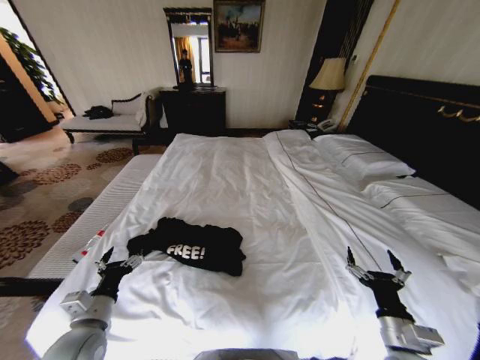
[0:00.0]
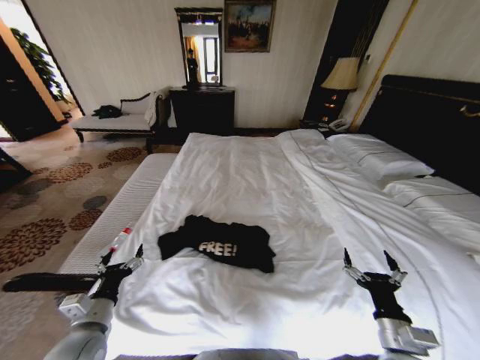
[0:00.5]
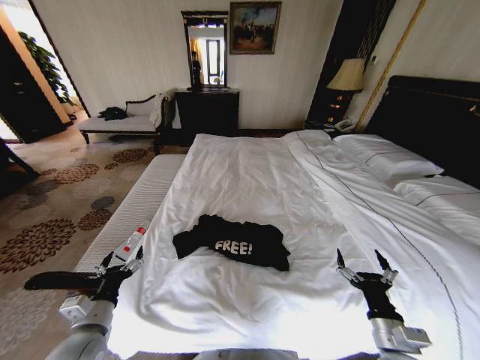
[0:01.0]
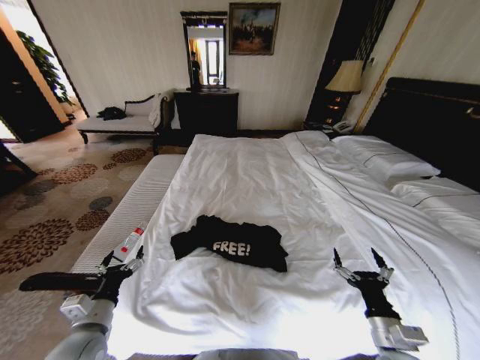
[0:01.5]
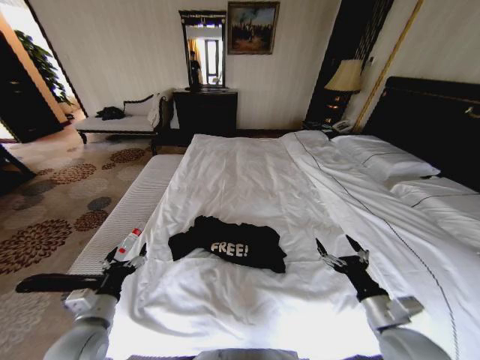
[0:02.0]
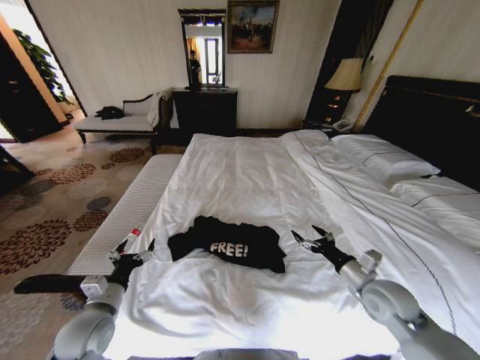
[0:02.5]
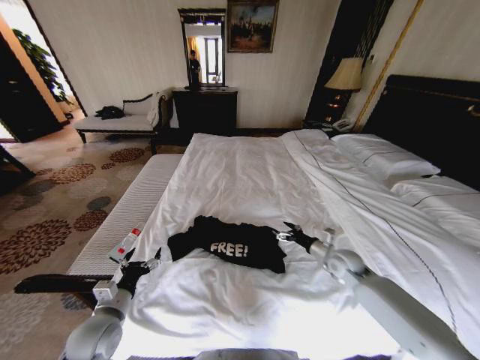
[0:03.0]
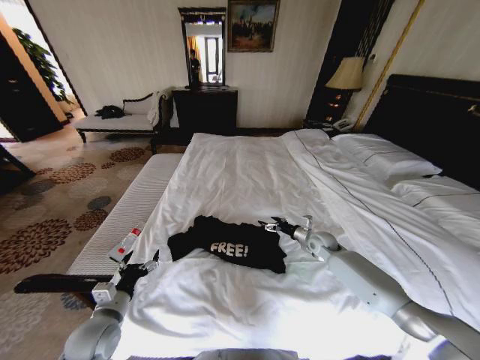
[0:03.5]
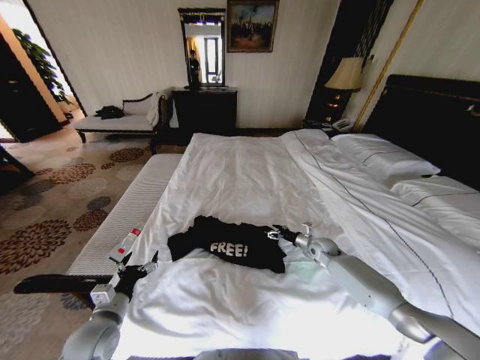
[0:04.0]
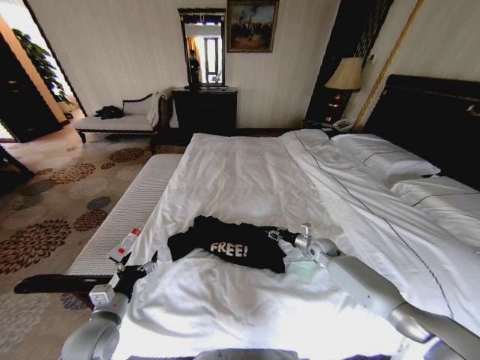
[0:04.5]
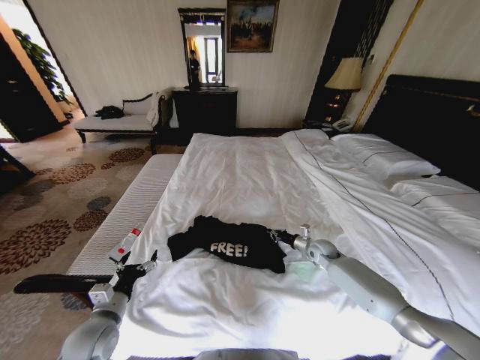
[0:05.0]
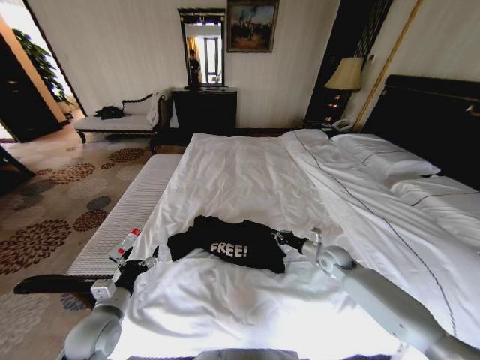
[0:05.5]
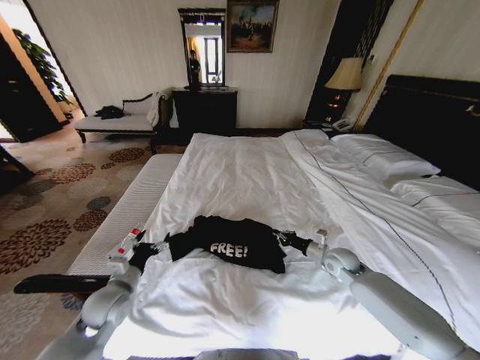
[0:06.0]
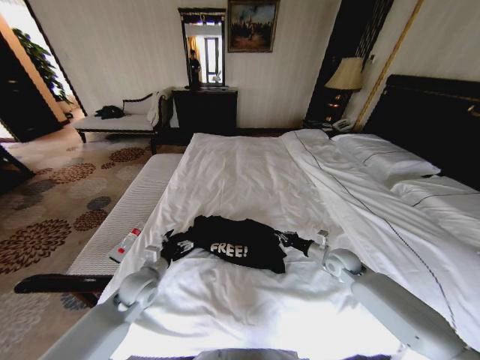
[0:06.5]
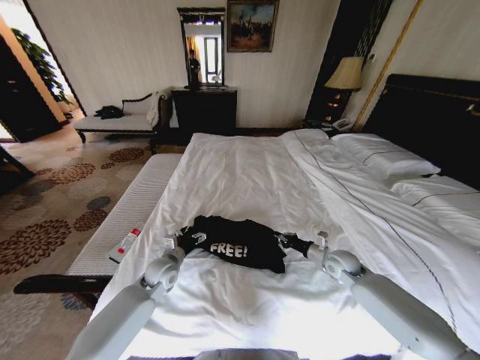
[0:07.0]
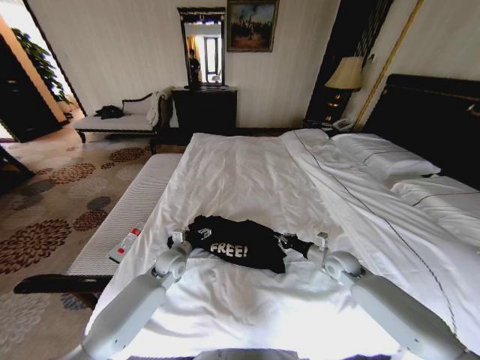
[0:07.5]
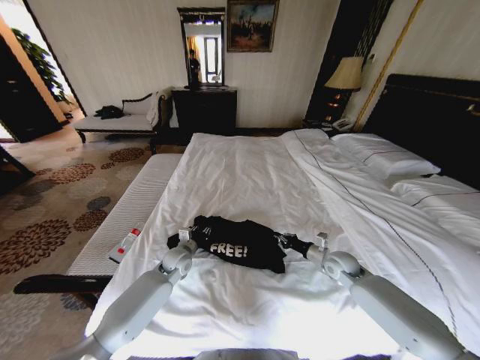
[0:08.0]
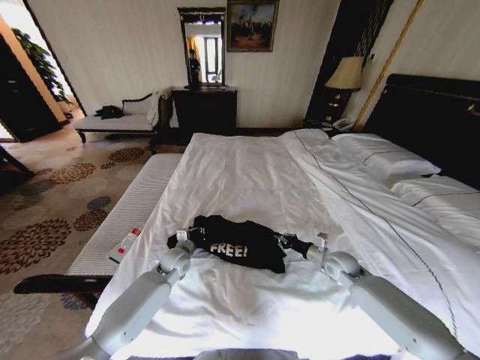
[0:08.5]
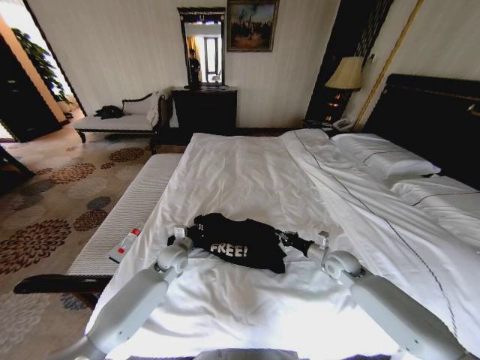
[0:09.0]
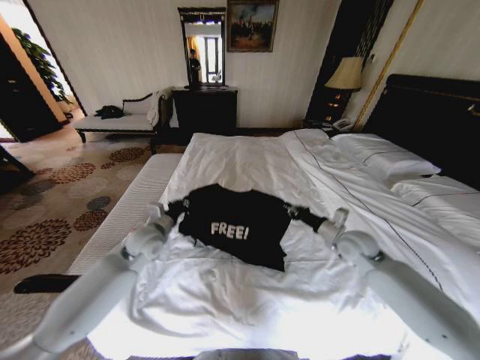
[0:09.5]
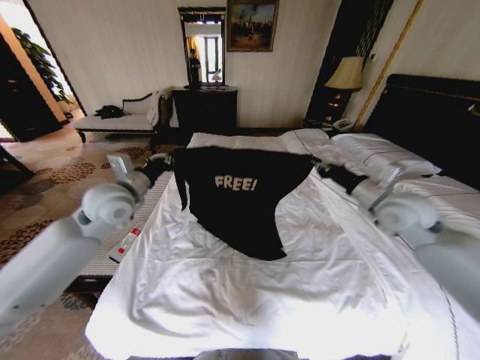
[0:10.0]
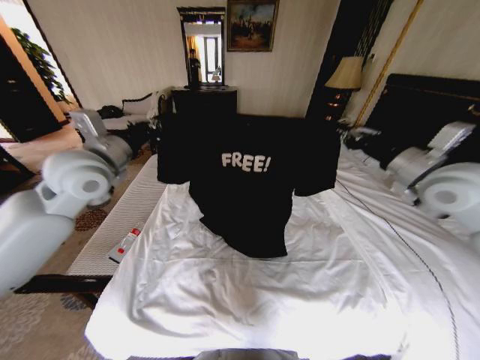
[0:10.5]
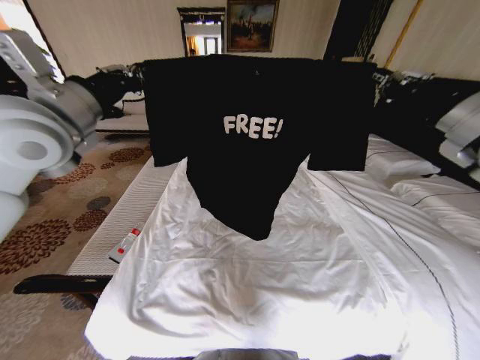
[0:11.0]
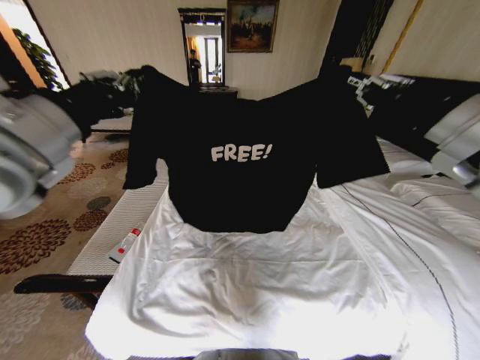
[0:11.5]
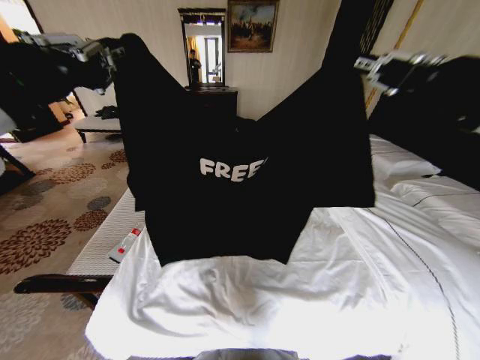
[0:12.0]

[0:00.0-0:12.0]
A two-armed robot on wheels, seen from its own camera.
Task of the whole recording: Fold the clothes on the bed.
0:00.0 to 0:02.0: The right gripper shifts by some 5 cm.
0:02.0 to 0:04.0: The right gripper heads forward, covering roughly 30 cm.
0:04.0 to 0:06.0: The left gripper goes approximately 5 cm forward. The right gripper goes approximately 10 cm backward and upward, and closes its fingers.
0:06.0 to 0:08.0: The left gripper travels forward and to the right by approximately 20 cm, and closes up.
0:08.0 to 0:10.0: Both grippers travel together upward, about 25 cm. The left gripper closes up.
0:10.0 to 0:12.0: The two grippers go approximately 30 cm upward and backward.

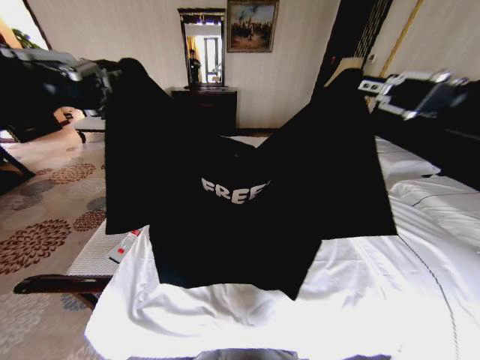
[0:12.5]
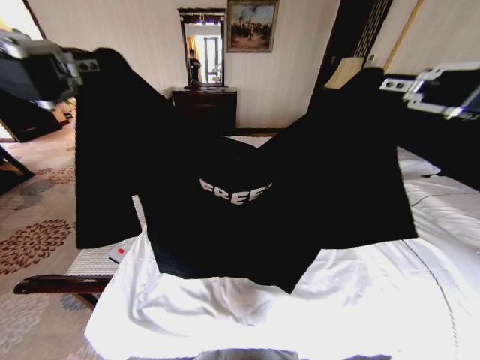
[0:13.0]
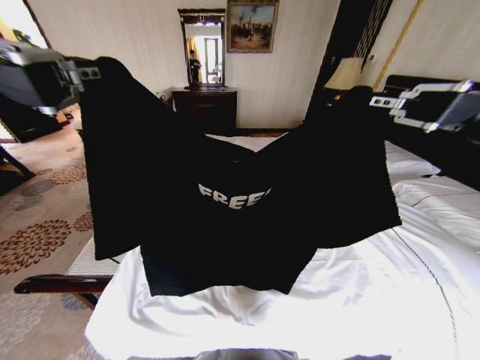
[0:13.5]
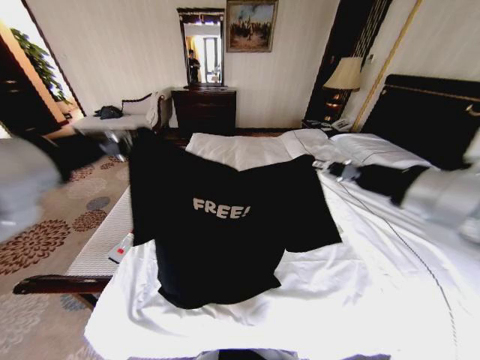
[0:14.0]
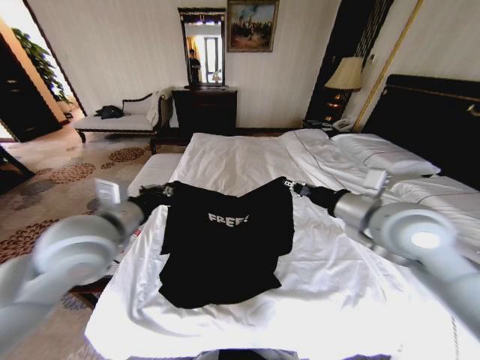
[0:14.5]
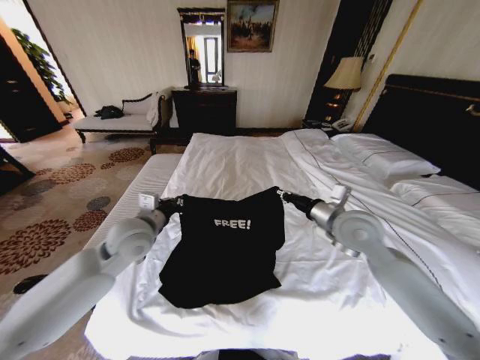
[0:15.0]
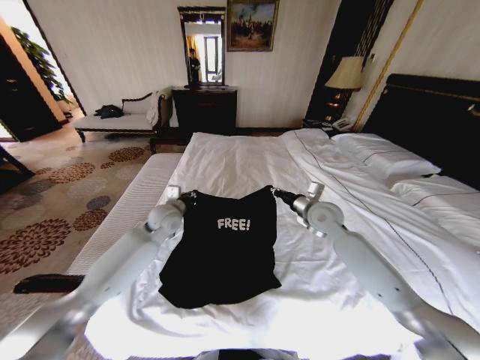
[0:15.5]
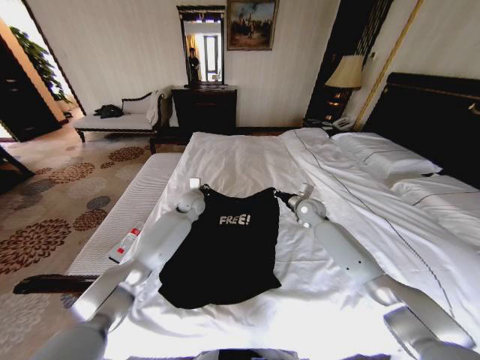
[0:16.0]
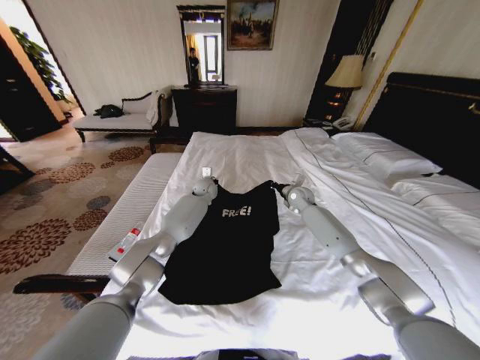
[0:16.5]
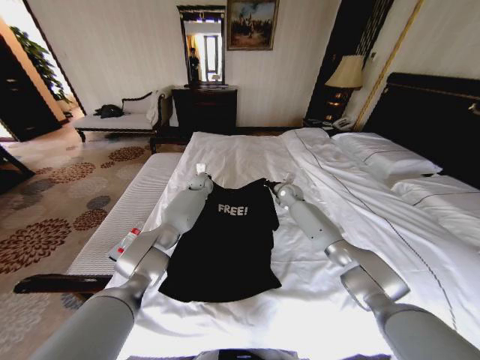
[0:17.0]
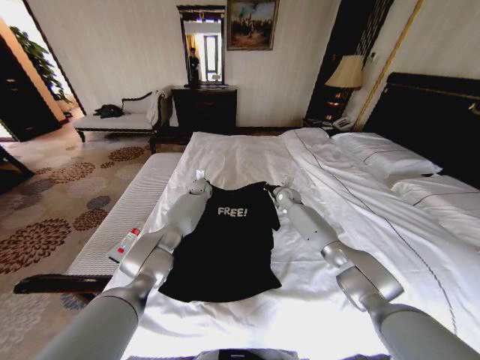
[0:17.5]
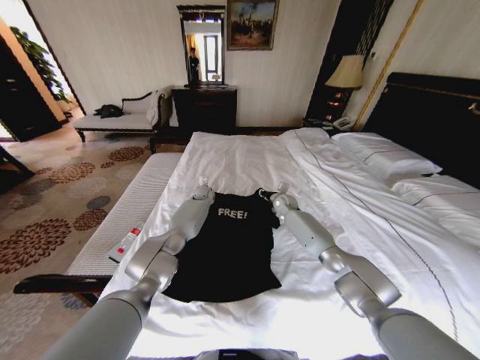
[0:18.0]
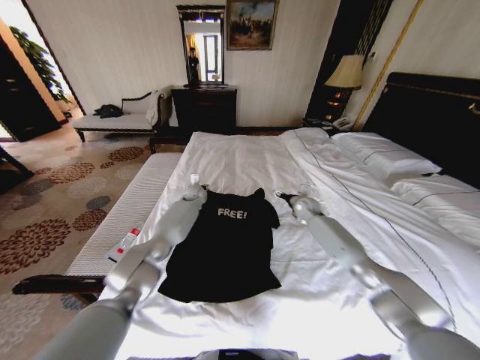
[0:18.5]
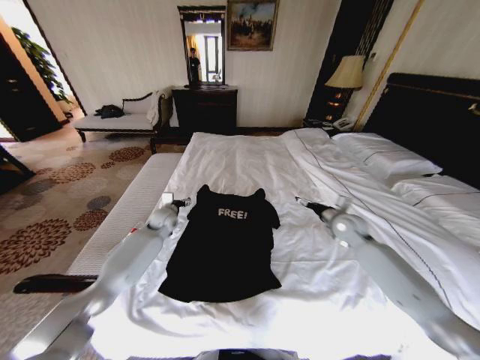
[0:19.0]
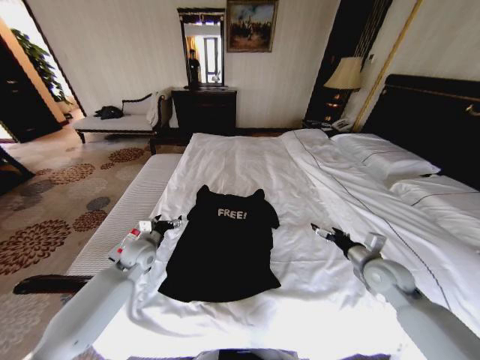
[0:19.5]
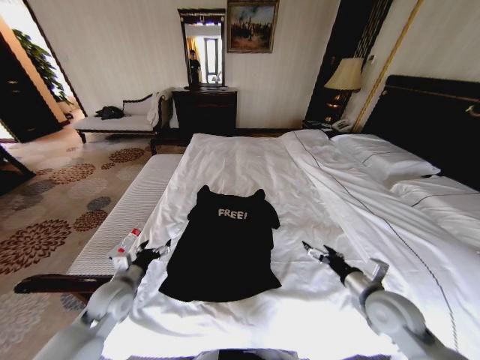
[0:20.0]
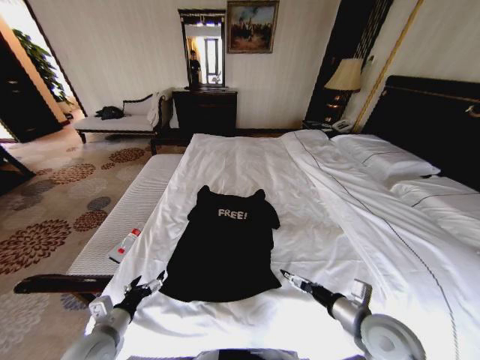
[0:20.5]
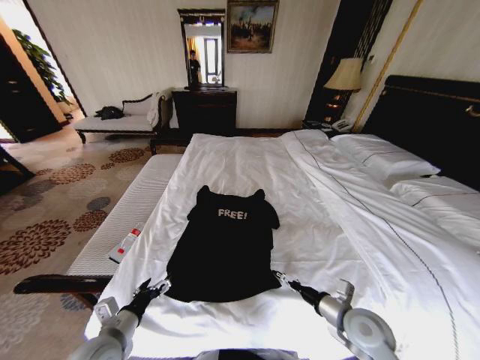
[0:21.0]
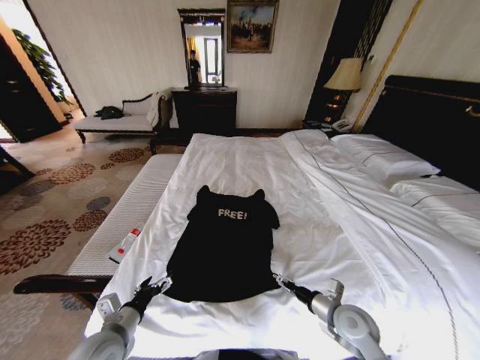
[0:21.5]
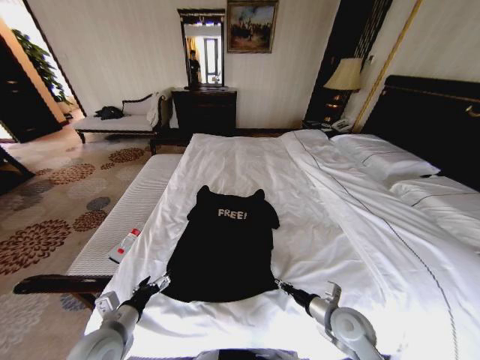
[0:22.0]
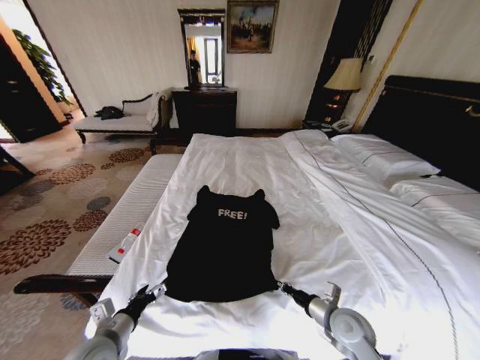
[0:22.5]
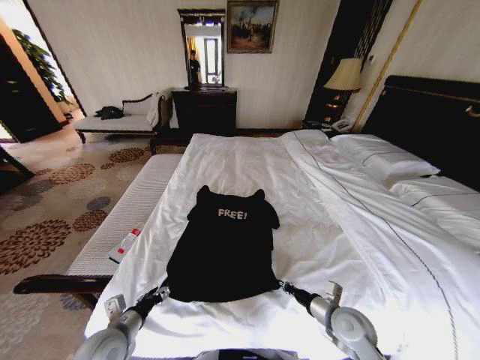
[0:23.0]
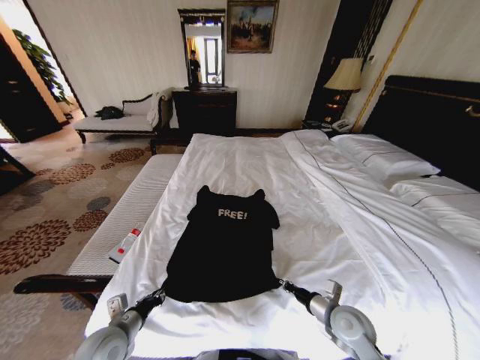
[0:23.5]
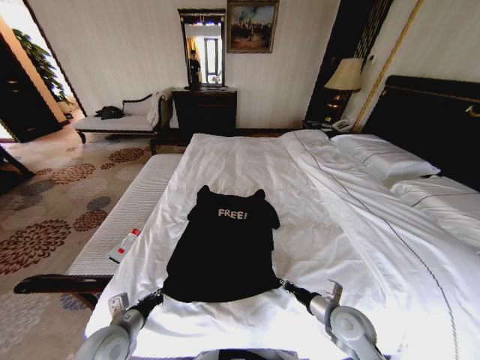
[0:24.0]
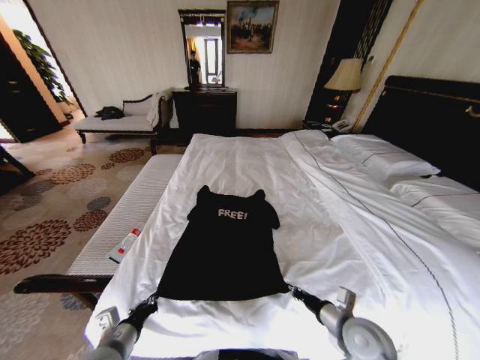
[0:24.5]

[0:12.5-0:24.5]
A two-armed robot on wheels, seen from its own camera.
Task of the whole recording: Fold the clothes on the bed.
0:12.5 to 0:14.5: The grippers both shift downward and forward by approximately 20 cm.
0:14.5 to 0:16.5: The grippers both shift forward and downward by approximately 40 cm.
0:16.5 to 0:18.5: The left gripper shifts approximately 5 cm to the left, and opens. Meanwhile the right gripper shifts by about 5 cm, and opens.
0:18.5 to 0:20.5: Both grippers move backward, about 40 cm.
0:20.5 to 0:22.5: The right gripper is displaced downward by some 10 cm, and closes up.
0:22.5 to 0:24.5: The left gripper closes its fingers.

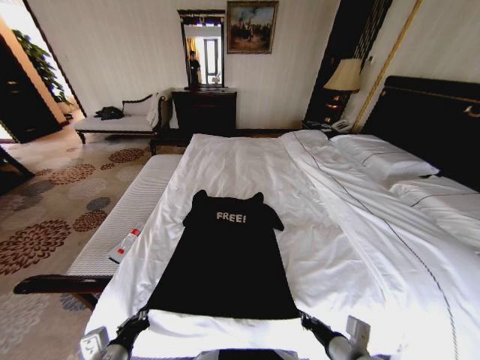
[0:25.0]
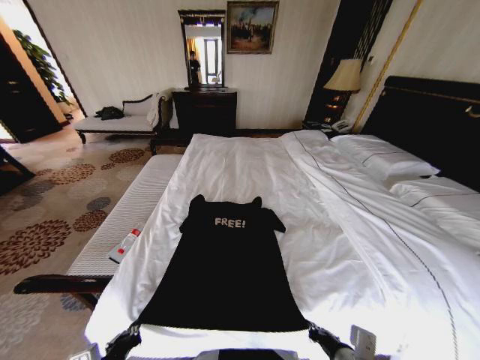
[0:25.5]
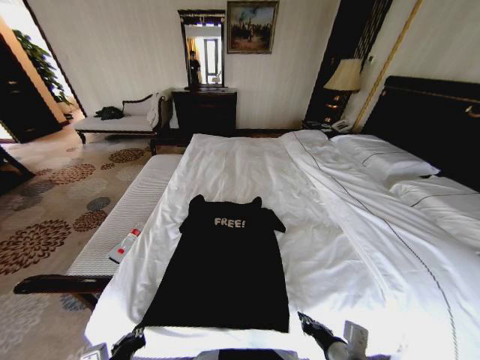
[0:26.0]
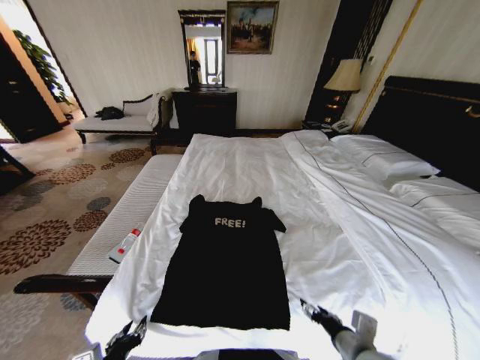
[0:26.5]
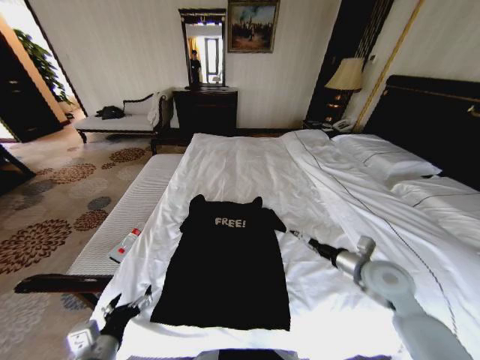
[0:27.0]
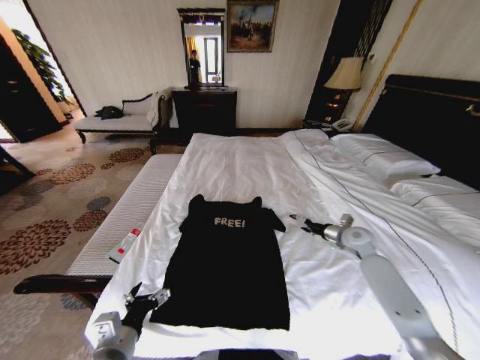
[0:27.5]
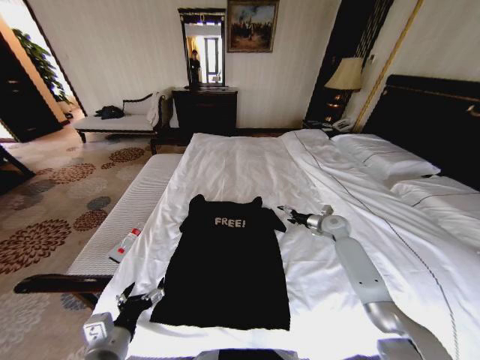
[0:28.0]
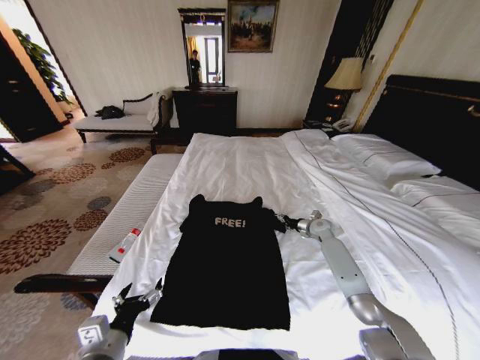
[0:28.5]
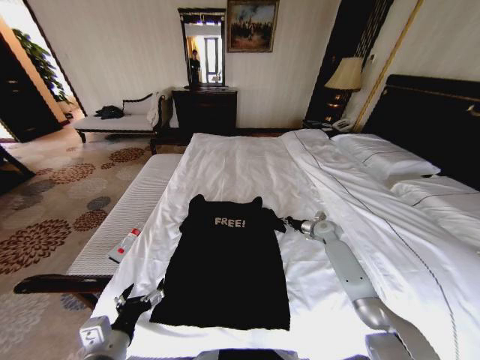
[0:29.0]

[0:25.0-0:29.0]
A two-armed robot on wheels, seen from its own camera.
Task of the whole recording: Fold the clothes on the bed.
0:25.0 to 0:27.0: The left gripper opens up. The right gripper moves forward and to the right, roughly 20 cm, and opens.
0:27.0 to 0:29.0: The right gripper moves forward and downward, approximately 25 cm, and closes.
